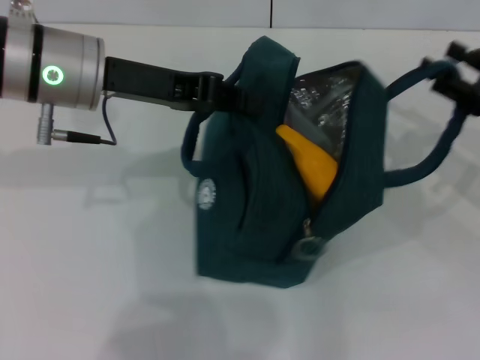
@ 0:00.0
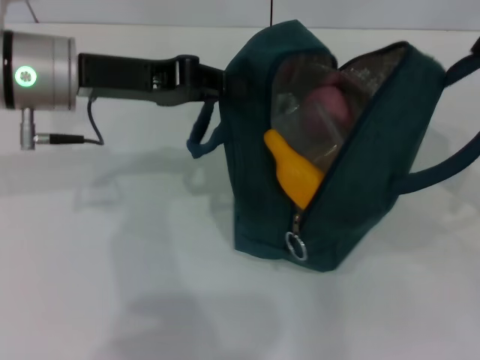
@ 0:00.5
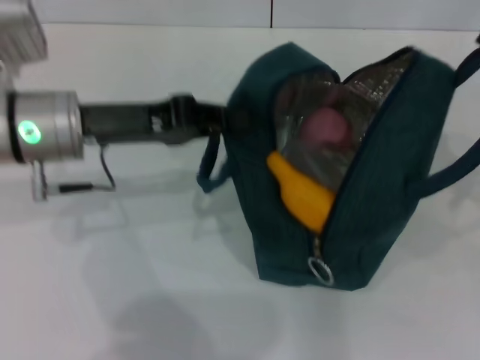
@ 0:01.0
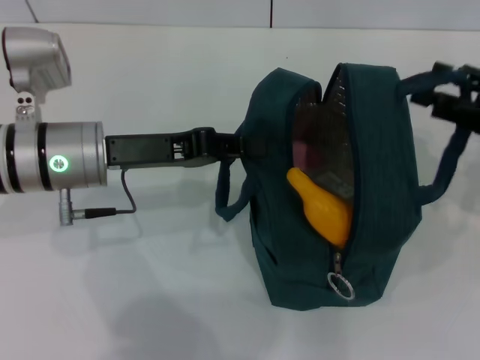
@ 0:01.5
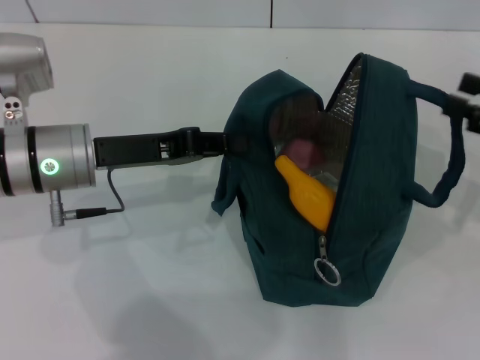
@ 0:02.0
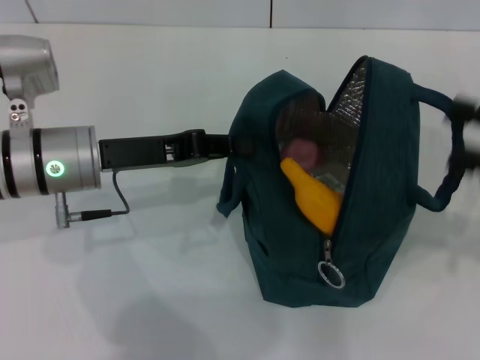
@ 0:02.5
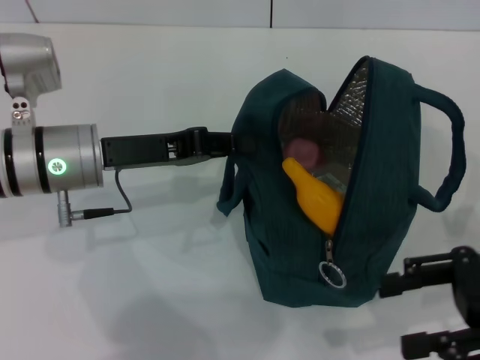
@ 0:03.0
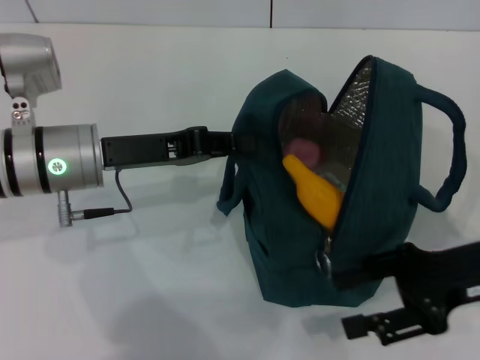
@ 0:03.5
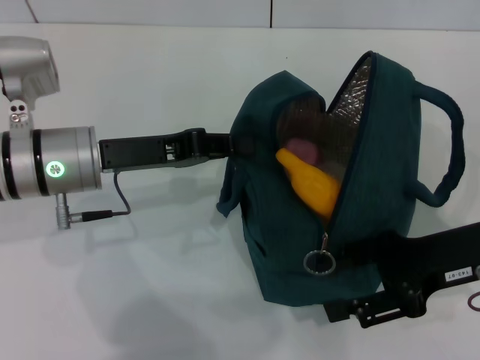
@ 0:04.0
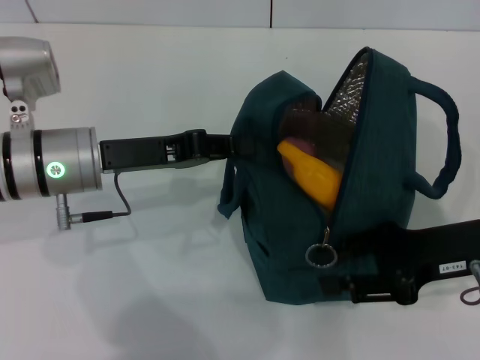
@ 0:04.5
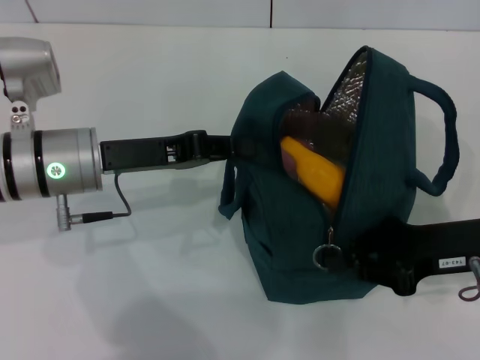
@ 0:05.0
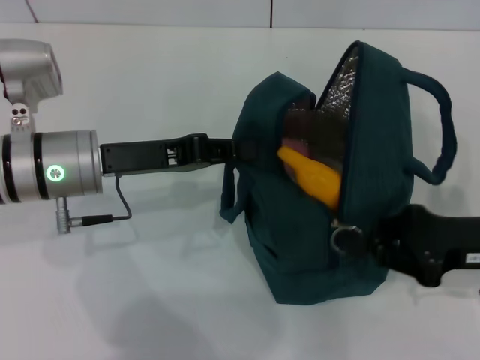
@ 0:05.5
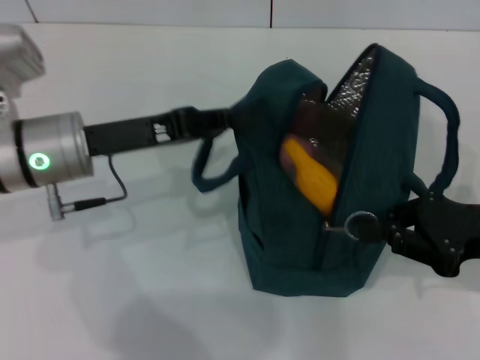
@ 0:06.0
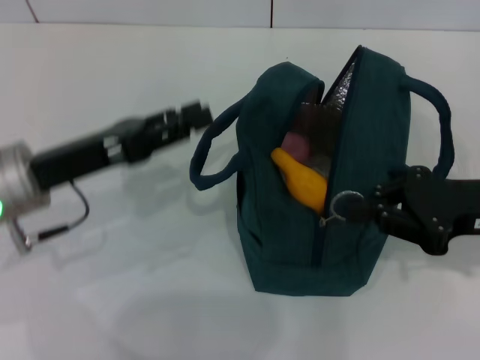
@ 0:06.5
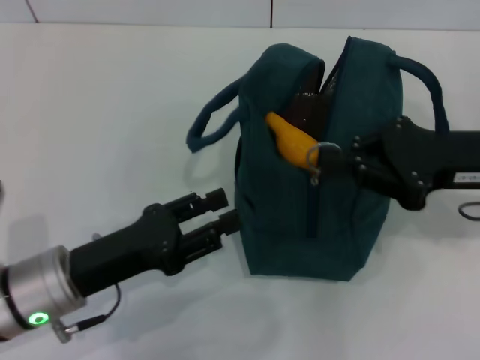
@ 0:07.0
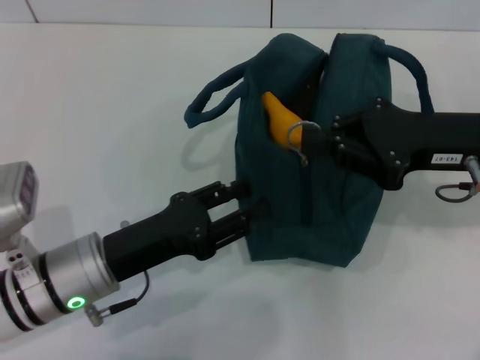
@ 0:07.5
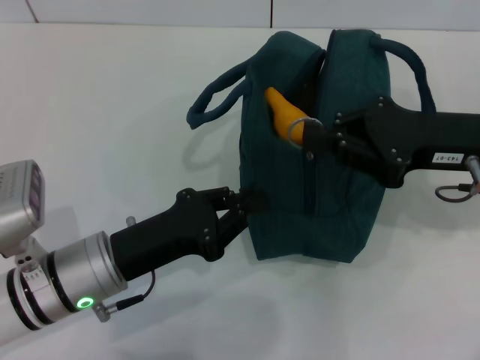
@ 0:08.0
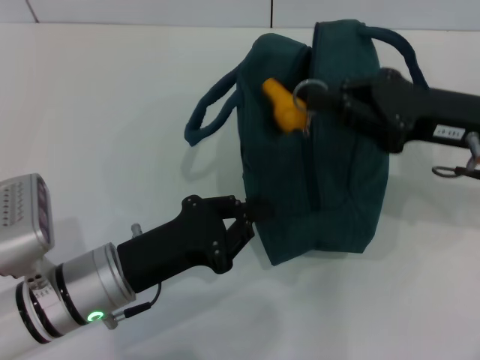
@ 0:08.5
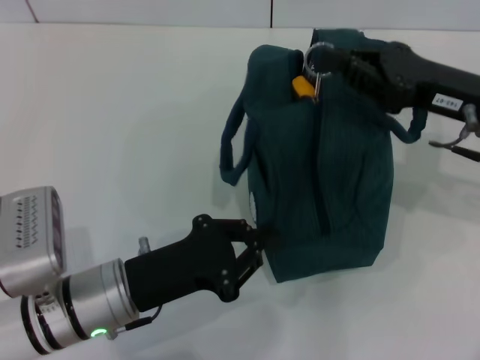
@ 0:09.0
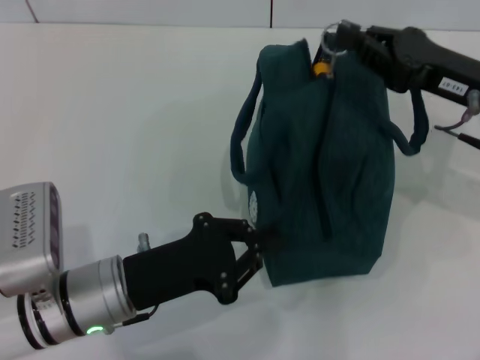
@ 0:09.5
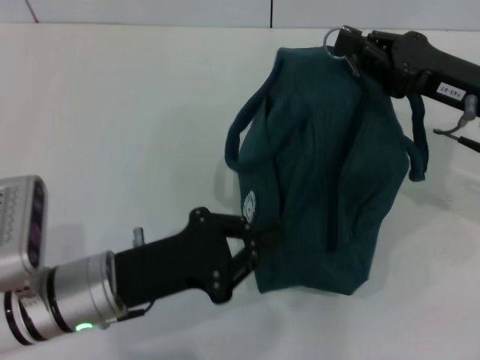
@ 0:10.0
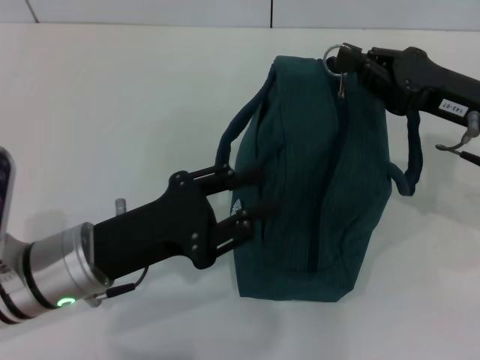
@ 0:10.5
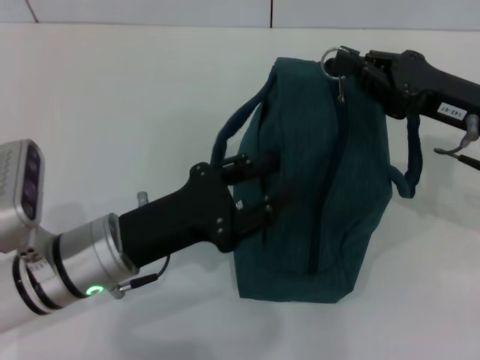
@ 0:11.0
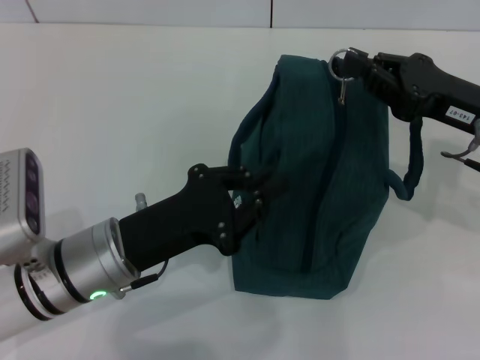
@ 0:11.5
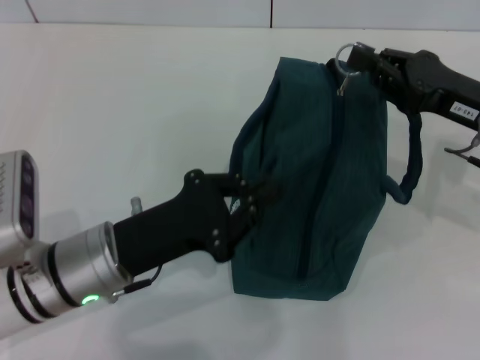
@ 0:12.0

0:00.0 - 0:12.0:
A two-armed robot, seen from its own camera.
0:00.0 - 0:02.0: The right gripper changes place by about 5 cm. The left gripper goes approximately 10 cm downward.
0:02.0 - 0:04.0: The right gripper is displaced to the left by some 10 cm.
0:04.0 - 0:06.0: The right gripper closes its fingers.
0:06.0 - 0:08.0: The right gripper moves forward and to the left, roughly 5 cm. The left gripper heads backward and downward, covering roughly 10 cm.
0:10.0 - 0:12.0: The left gripper opens, then closes once more.

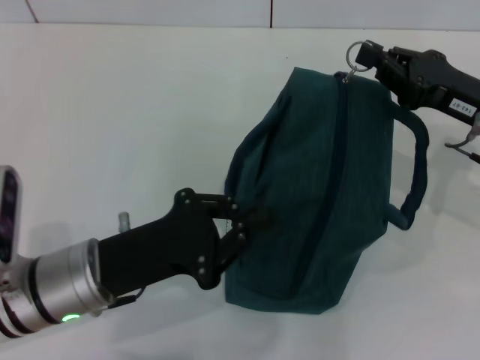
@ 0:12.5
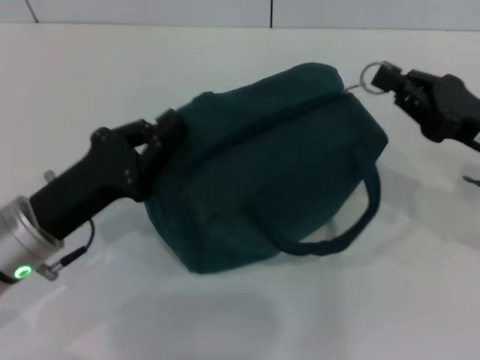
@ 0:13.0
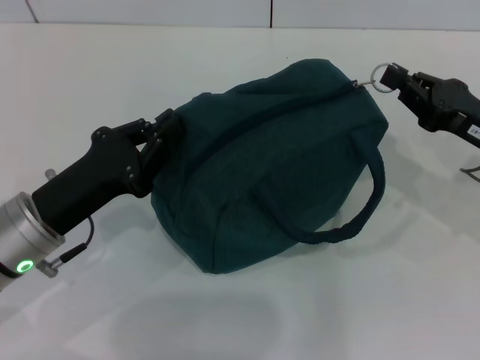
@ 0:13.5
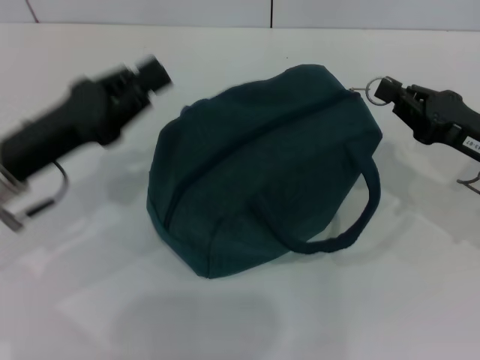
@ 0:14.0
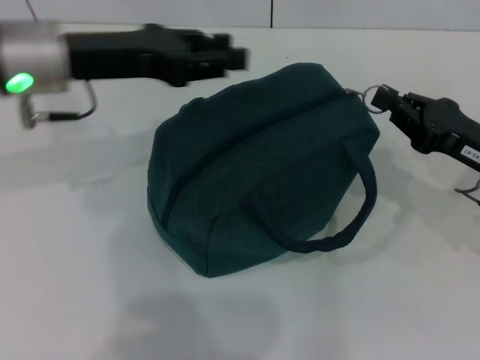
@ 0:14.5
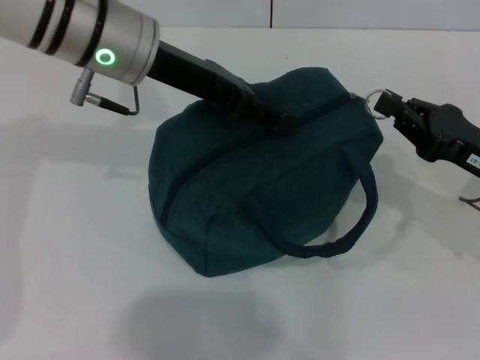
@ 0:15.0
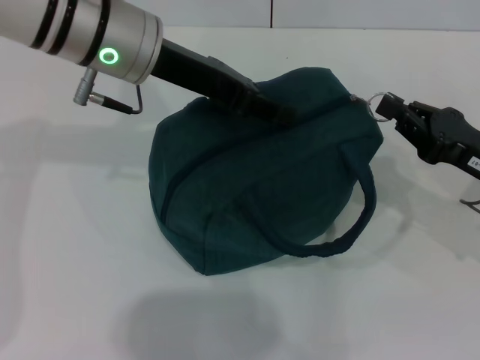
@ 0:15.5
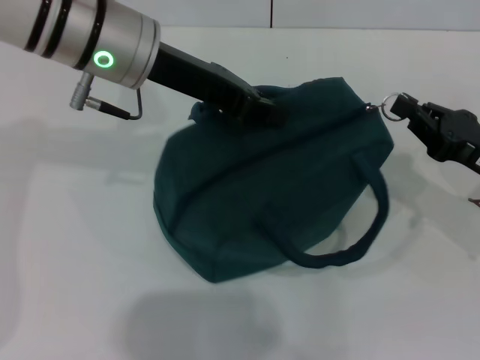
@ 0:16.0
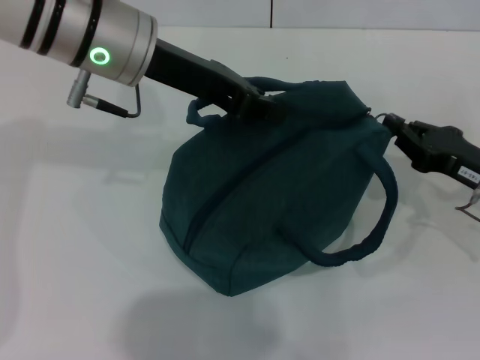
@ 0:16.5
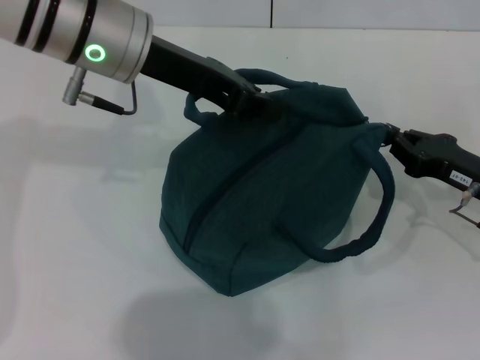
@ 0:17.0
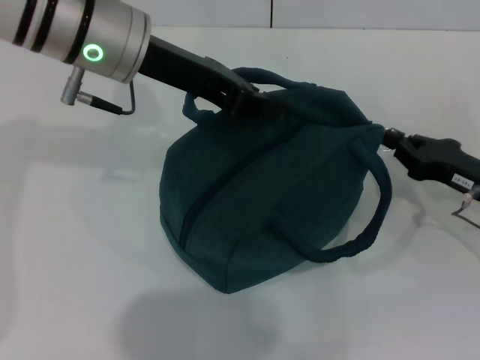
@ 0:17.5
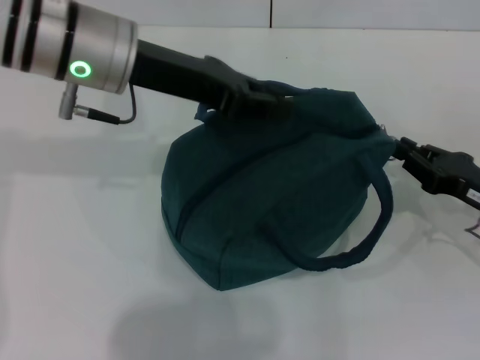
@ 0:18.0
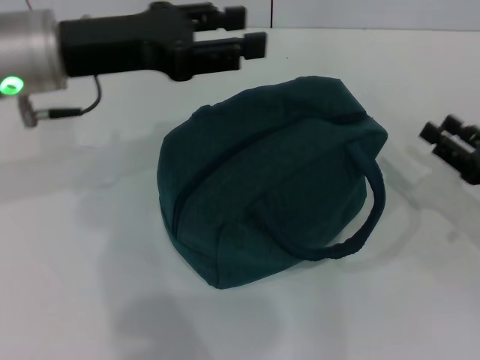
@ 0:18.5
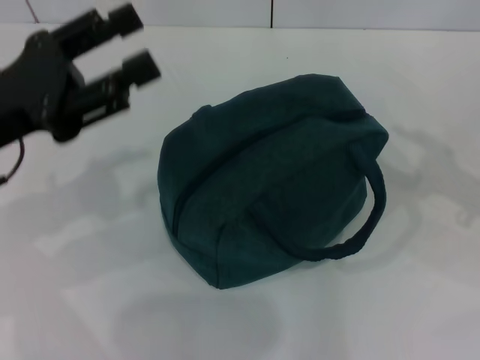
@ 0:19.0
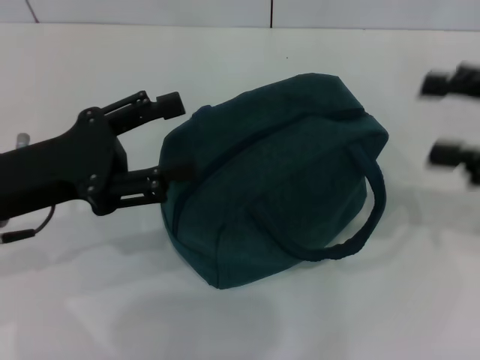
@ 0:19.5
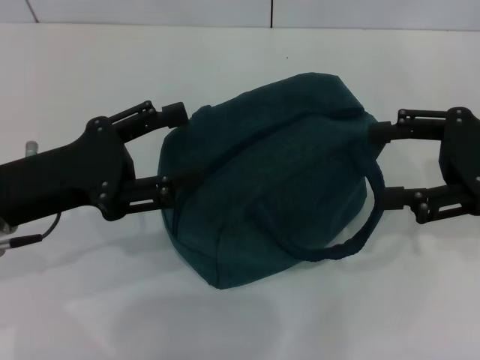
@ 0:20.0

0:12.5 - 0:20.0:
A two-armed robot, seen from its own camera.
Step, 0:12.5 - 0:18.0: Zip up the lunch bag with your right hand.
0:12.5 - 0:14.5: The left gripper goes about 20 cm upward and forward, and opens its fingers.
0:14.5 - 0:16.5: The left gripper moves to the right, approximately 5 cm, and closes.
0:16.5 - 0:18.0: The grippers make only small movements.
0:18.0 - 0:20.0: The right gripper travels upward by approximately 15 cm, and opens its fingers. Meanwhile the left gripper is displaced backward, to the left and downward by roughly 15 cm, and opens up.

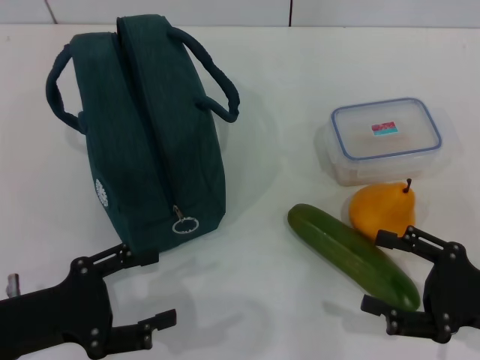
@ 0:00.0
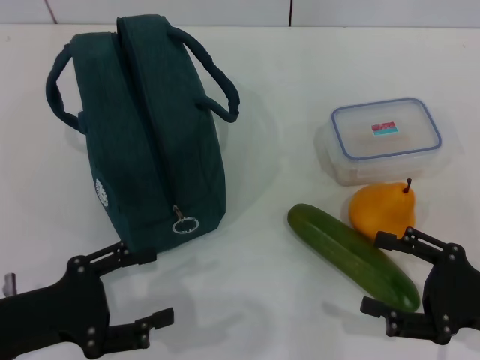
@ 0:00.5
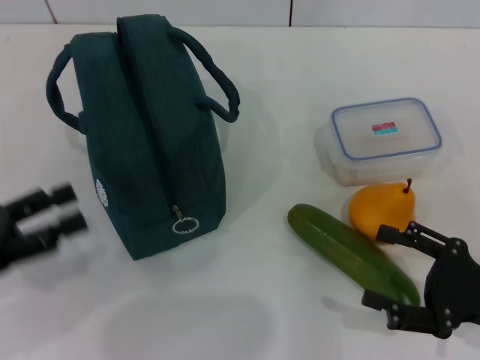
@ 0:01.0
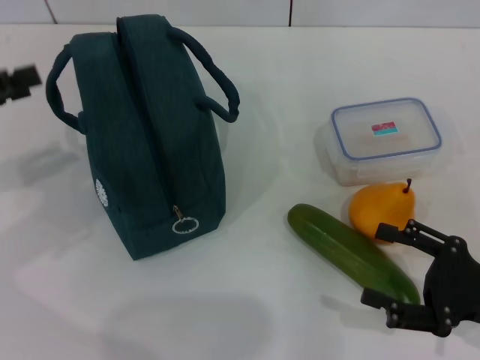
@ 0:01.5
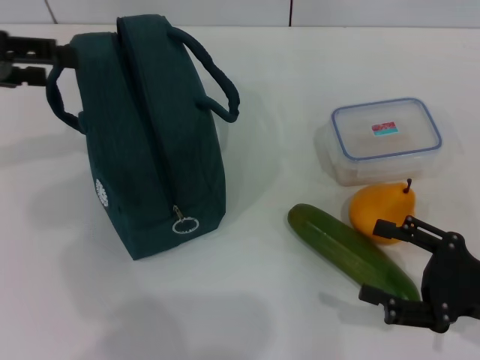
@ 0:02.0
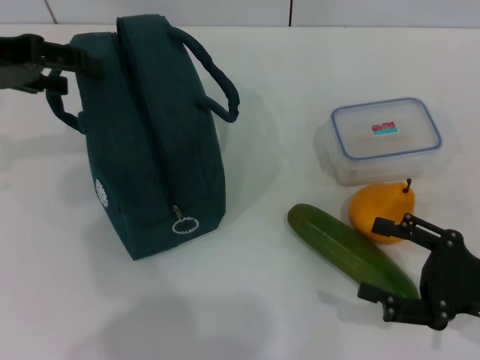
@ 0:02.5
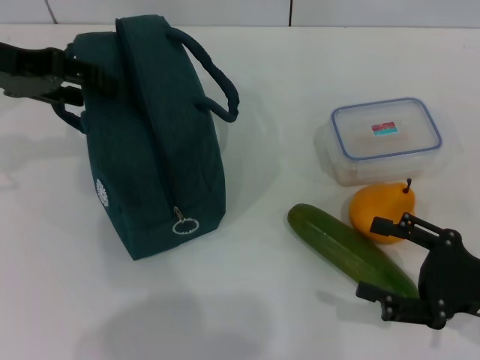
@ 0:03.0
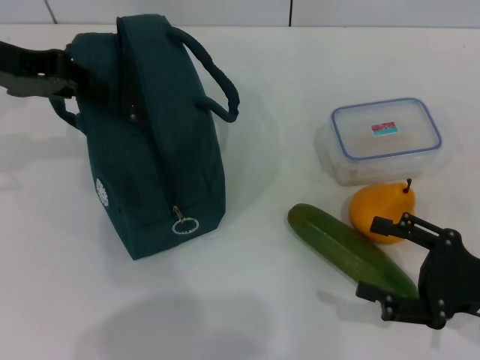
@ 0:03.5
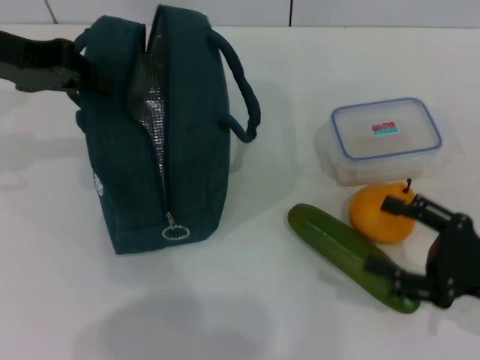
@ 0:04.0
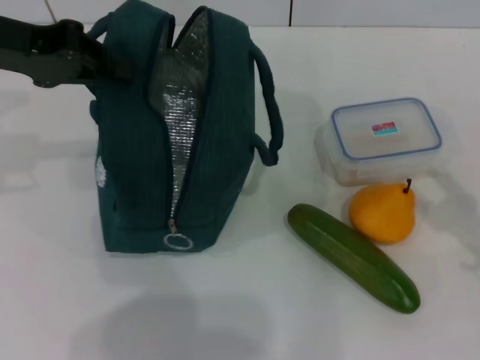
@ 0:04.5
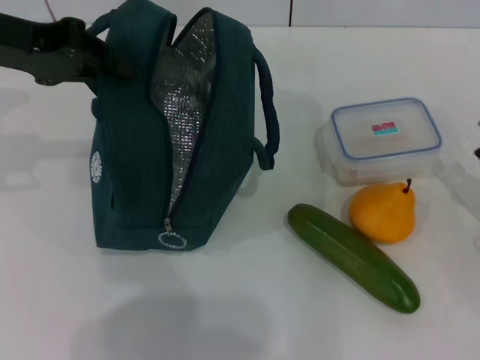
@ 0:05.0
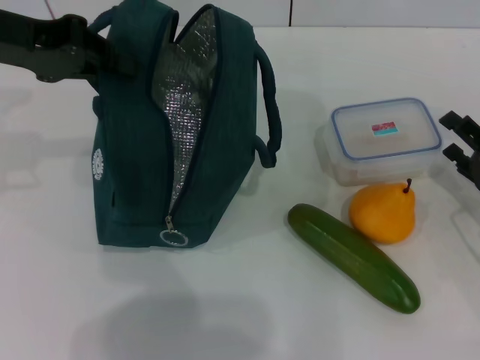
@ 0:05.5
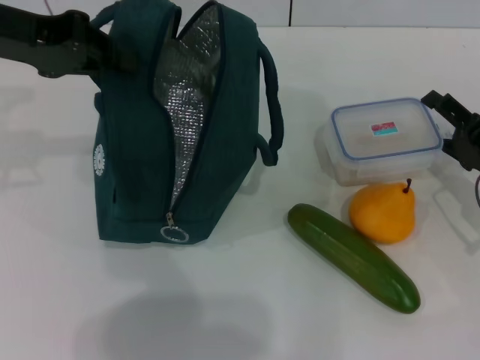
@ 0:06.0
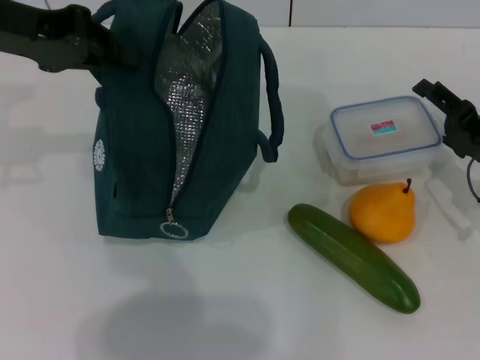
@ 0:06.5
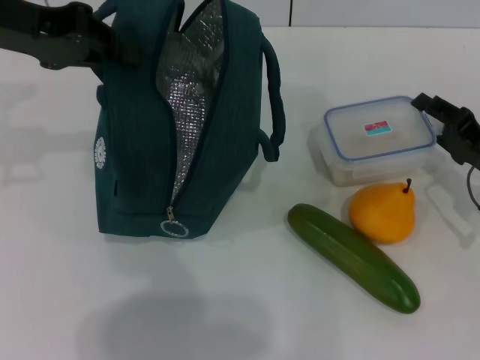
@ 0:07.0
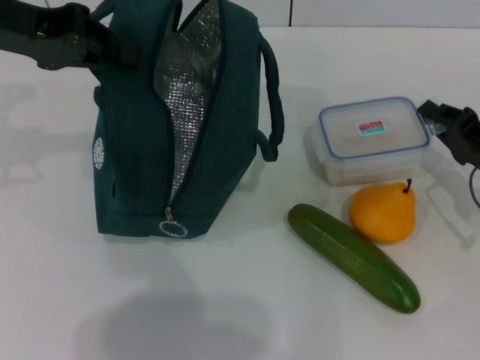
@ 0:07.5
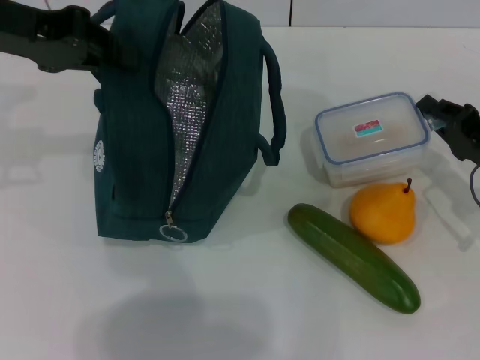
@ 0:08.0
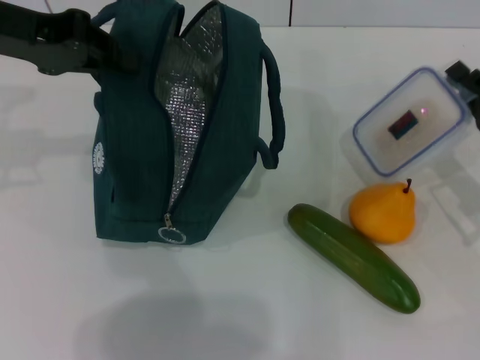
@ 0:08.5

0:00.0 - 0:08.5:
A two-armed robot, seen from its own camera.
Step, 0:00.0 - 0:03.5: Hold the lunch bag with your left hand.
Step, 0:04.0 - 0:08.0: Pick up the lunch box with your right hand.
0:00.0 - 0:02.0: The left gripper moves upward and forward, roughly 25 cm.
0:02.0 - 0:04.0: The left gripper moves roughly 5 cm, and closes.
0:04.0 - 0:06.5: The right gripper goes roughly 10 cm forward.
0:06.5 - 0:08.5: The right gripper closes its fingers.
